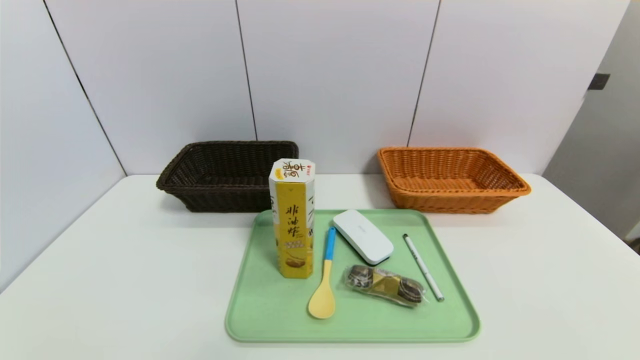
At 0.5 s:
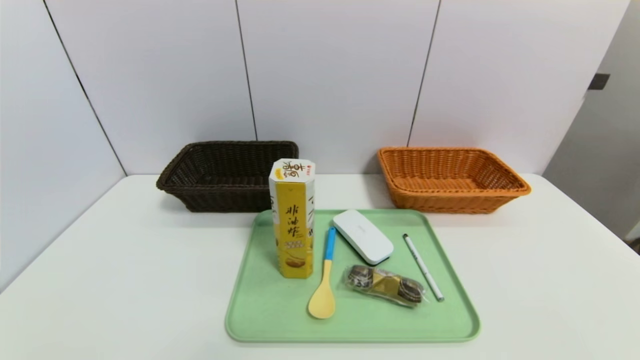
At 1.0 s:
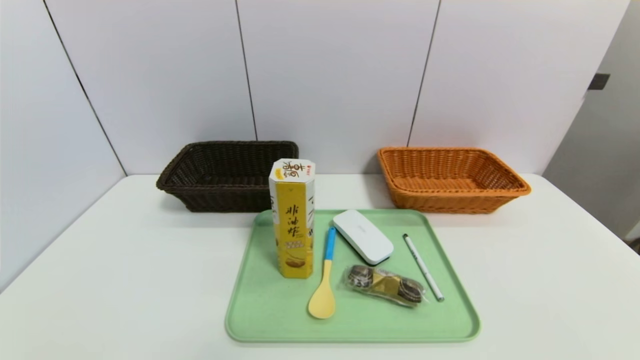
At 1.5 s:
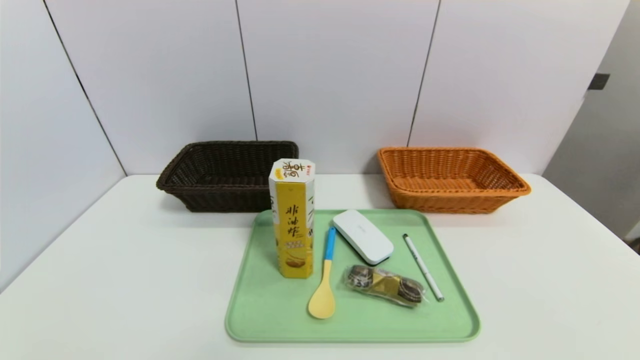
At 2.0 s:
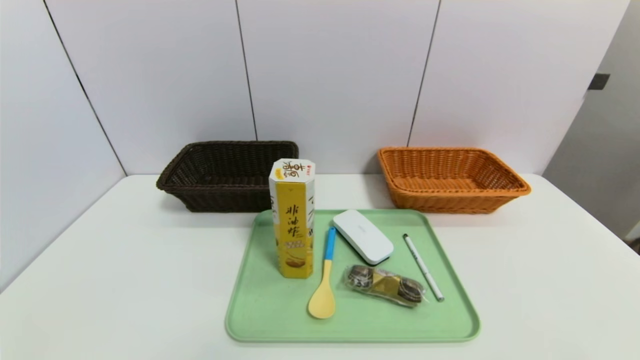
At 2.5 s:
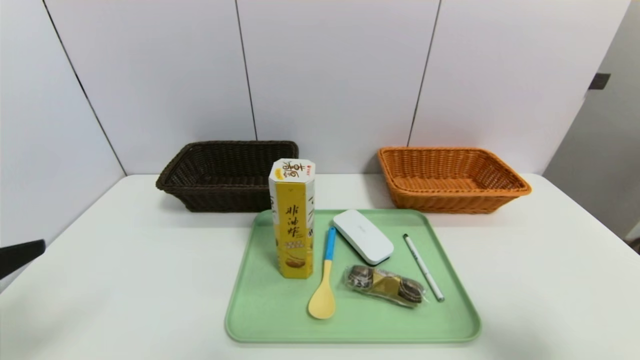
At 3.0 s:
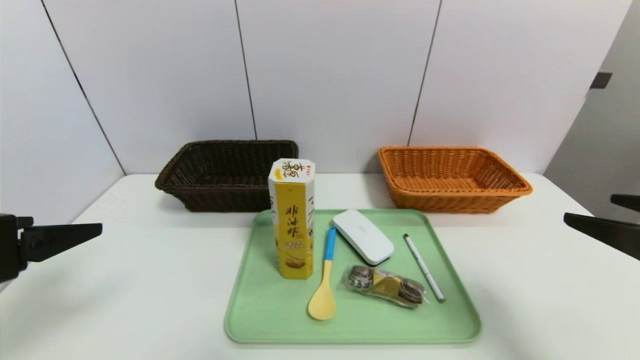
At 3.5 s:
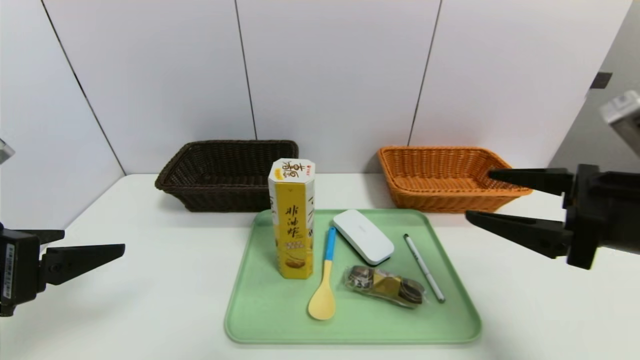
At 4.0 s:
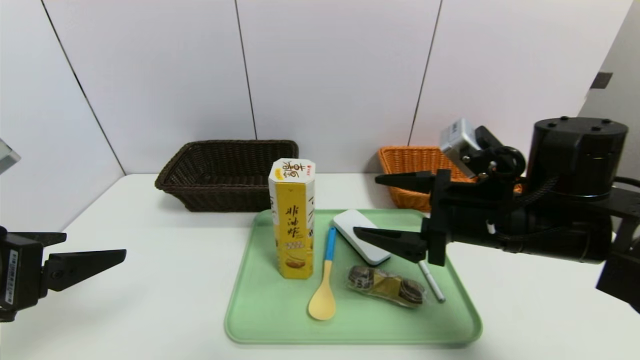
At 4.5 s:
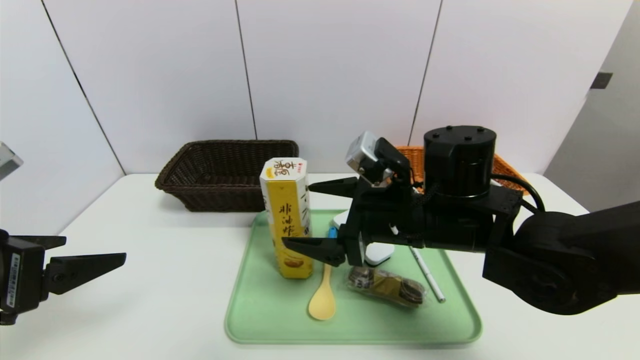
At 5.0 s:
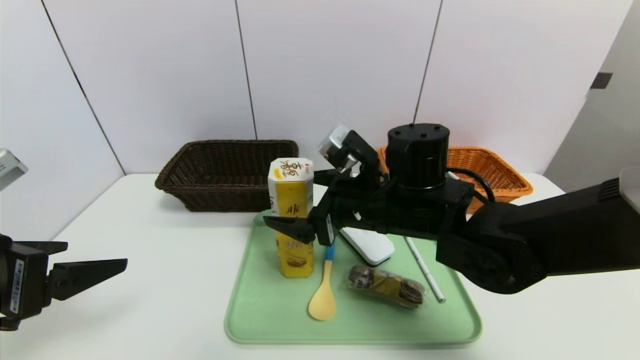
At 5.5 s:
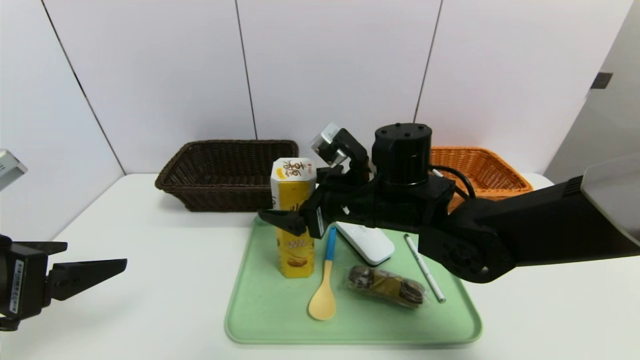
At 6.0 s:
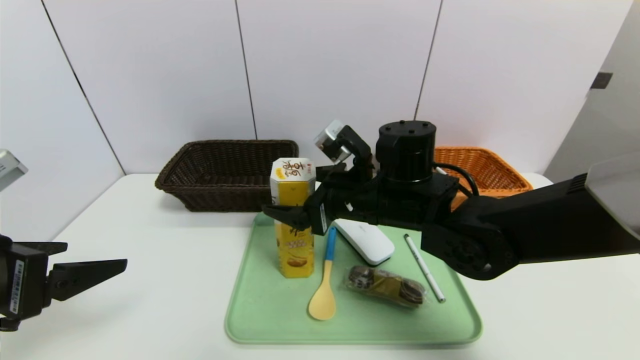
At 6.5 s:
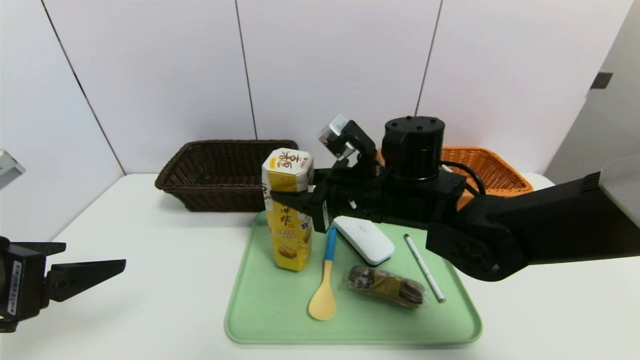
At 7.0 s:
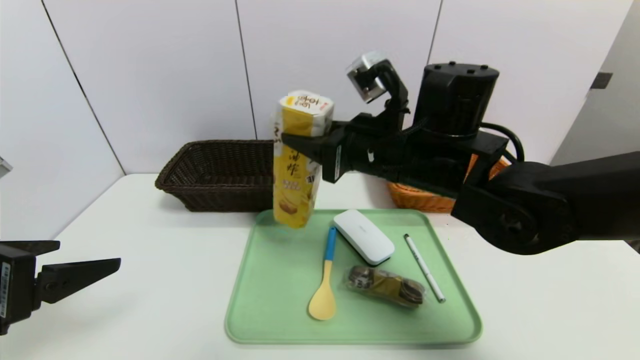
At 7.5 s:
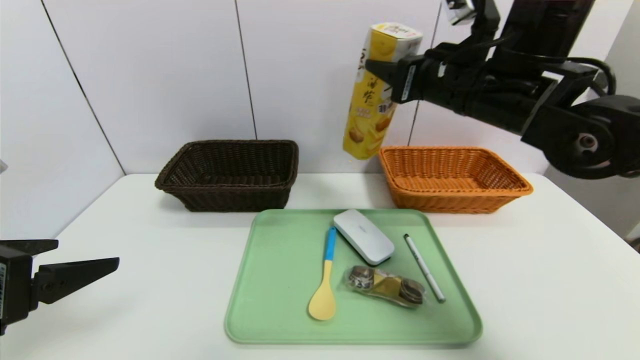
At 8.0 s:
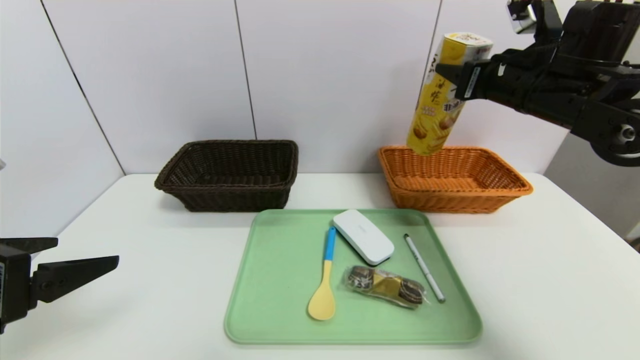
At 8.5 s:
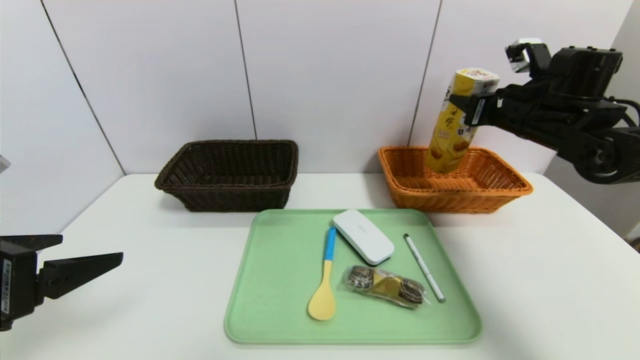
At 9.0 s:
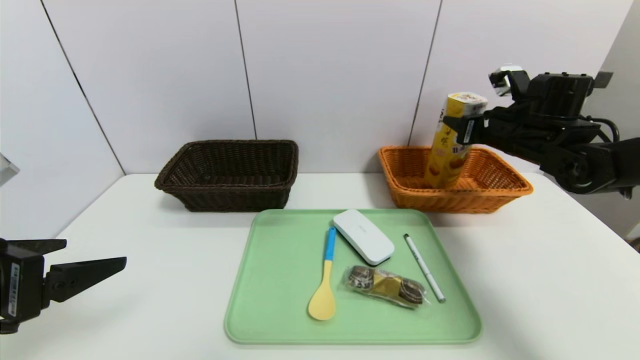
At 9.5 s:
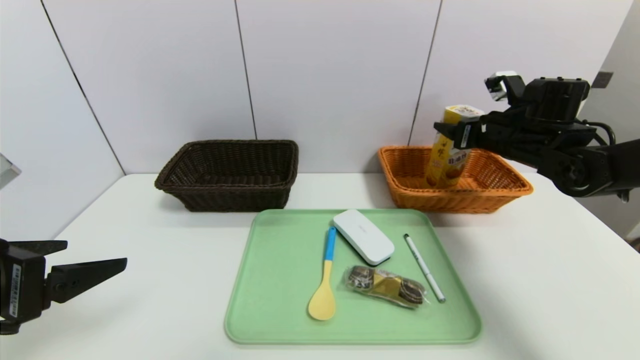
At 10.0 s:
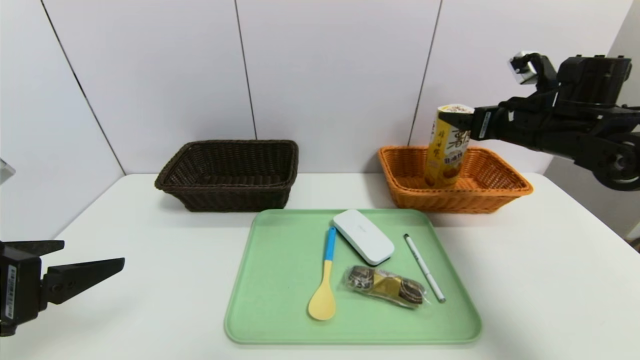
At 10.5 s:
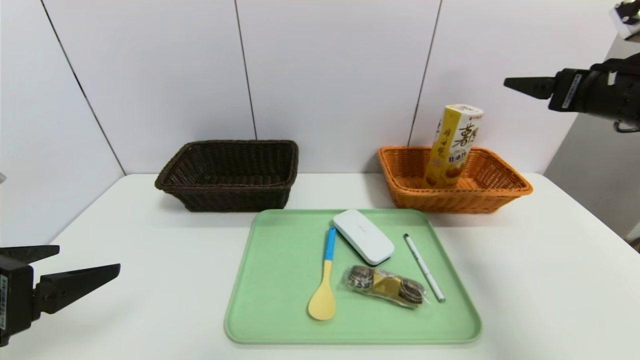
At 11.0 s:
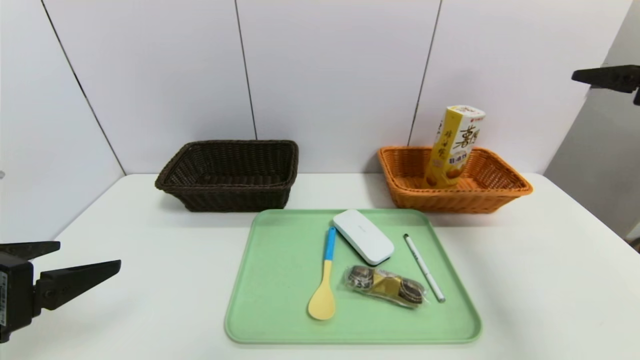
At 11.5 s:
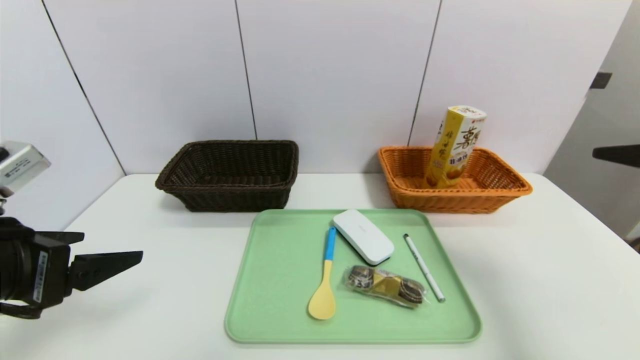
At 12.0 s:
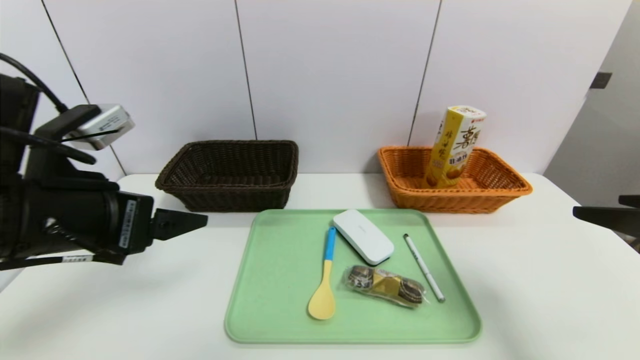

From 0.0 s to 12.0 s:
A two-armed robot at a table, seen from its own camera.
Task of the whole recording: place the food in the right basket with the right gripper, and place the non food items in the left basket with the left gripper.
Step, from 0.0 s to 10.0 s: Grasp the potato chips and put it in the right basket.
From 2.0 s to 4.0 s: The left gripper is displaced forward and upward by some 15 cm, while the right gripper moves forward and to the left, some 30 cm.
From 4.0 s to 6.0 s: The right gripper travels to the left and forward by some 15 cm.
From 6.0 s to 8.0 s: The right gripper goes approximately 20 cm to the right and upward, and closes up.
From 8.0 s to 10.0 s: The right gripper opens.
From 10.0 s to 12.0 s: The right gripper travels backward by roughly 25 cm; the left gripper travels to the right and forward by some 10 cm.

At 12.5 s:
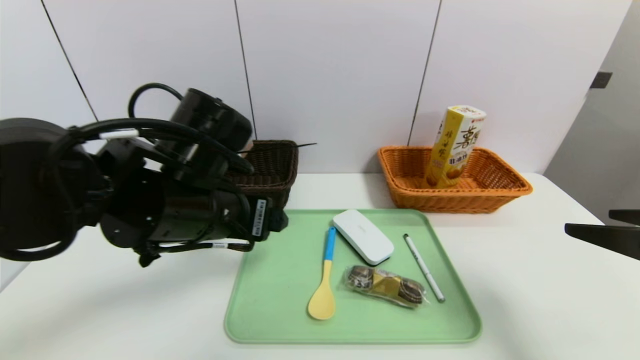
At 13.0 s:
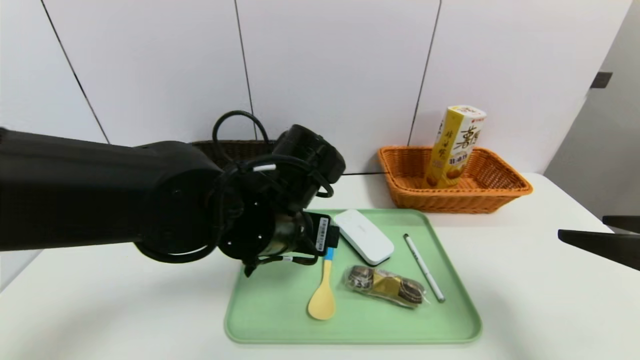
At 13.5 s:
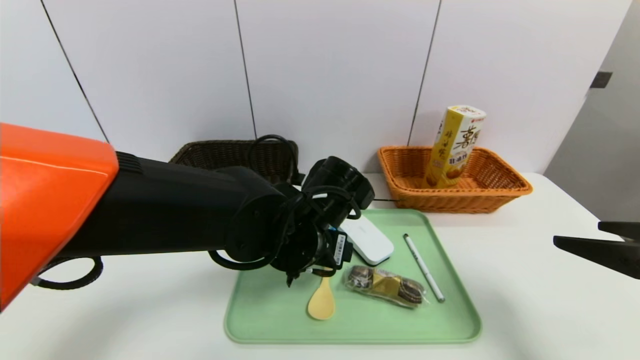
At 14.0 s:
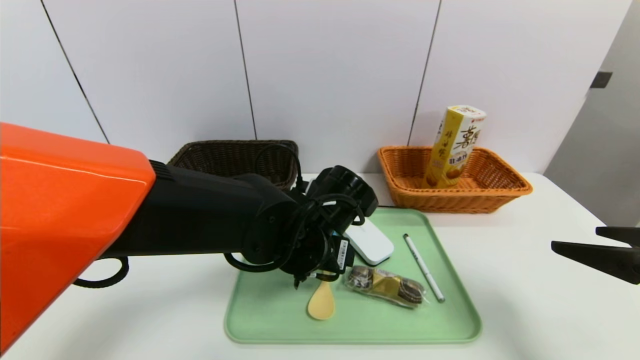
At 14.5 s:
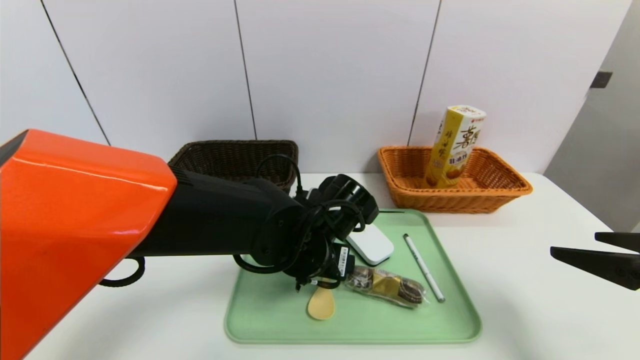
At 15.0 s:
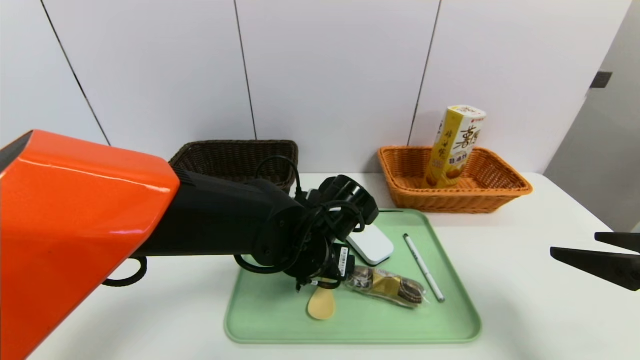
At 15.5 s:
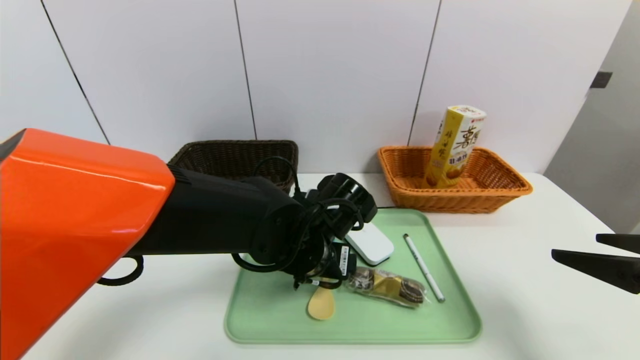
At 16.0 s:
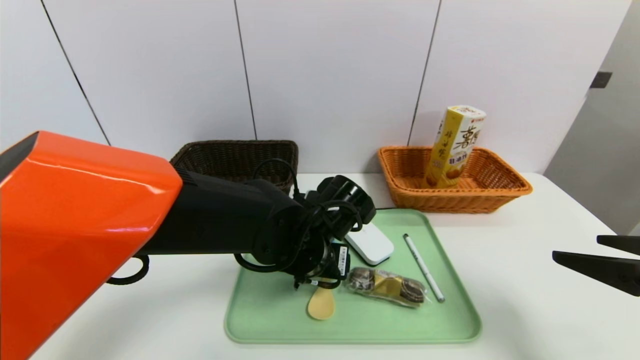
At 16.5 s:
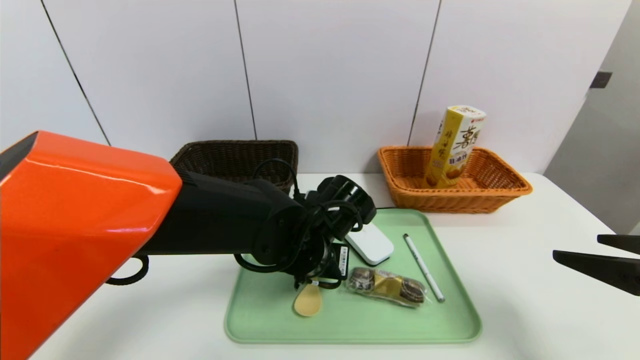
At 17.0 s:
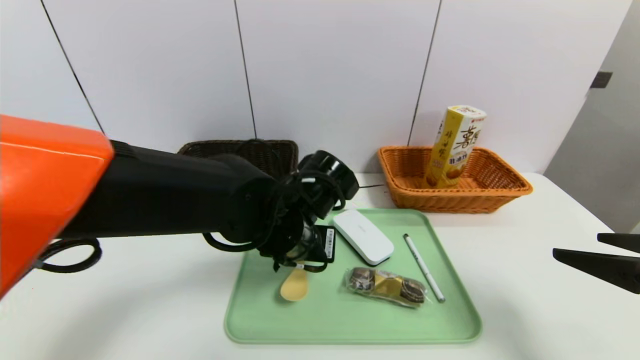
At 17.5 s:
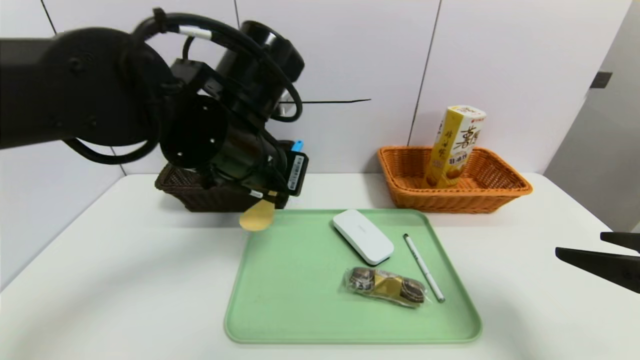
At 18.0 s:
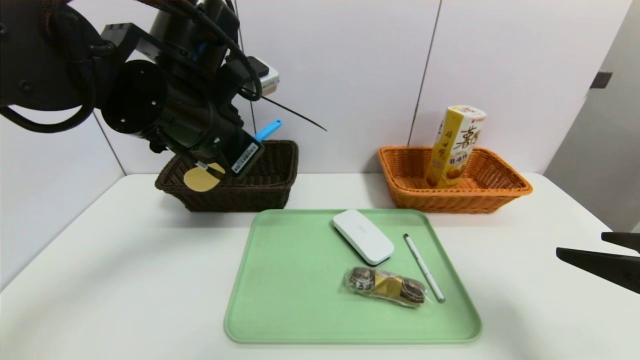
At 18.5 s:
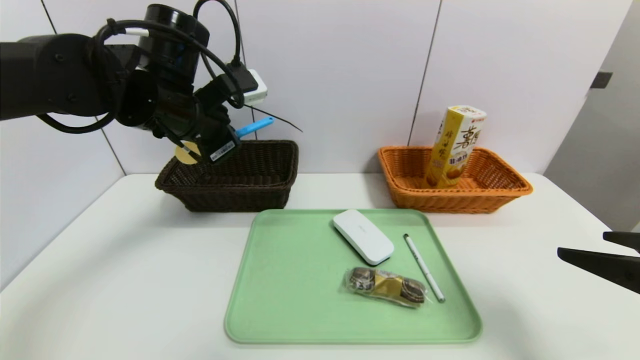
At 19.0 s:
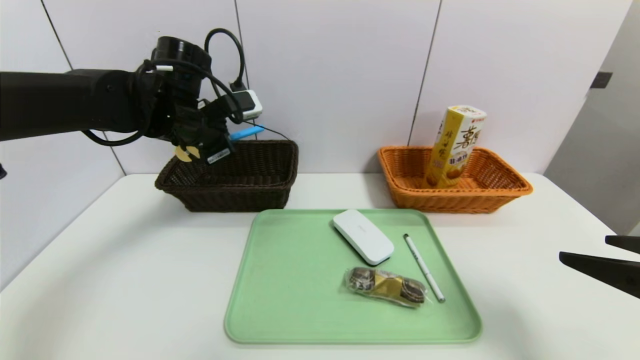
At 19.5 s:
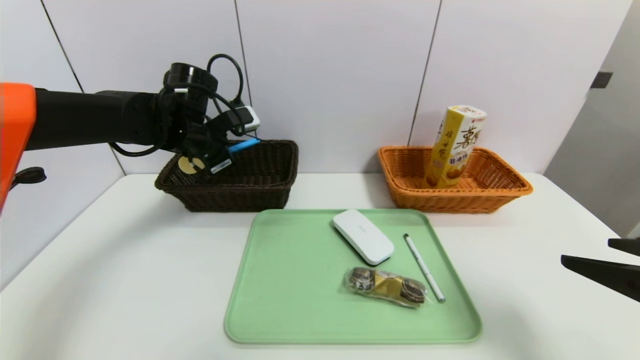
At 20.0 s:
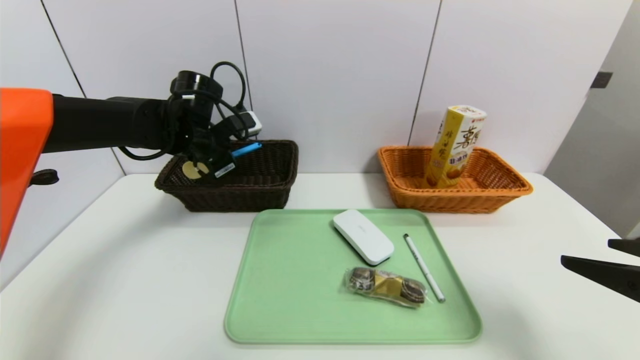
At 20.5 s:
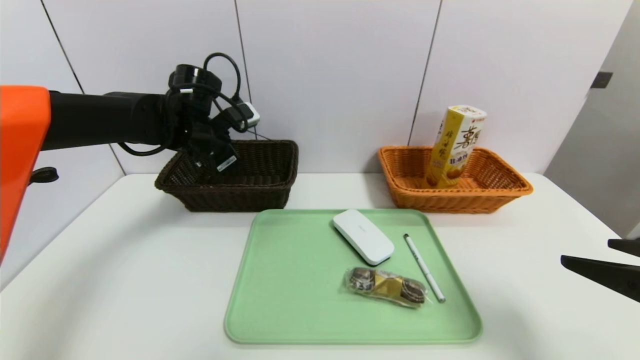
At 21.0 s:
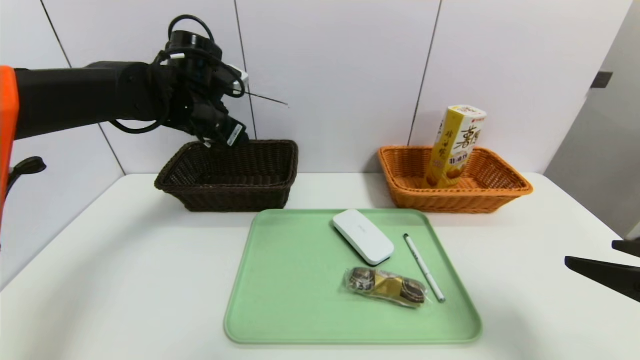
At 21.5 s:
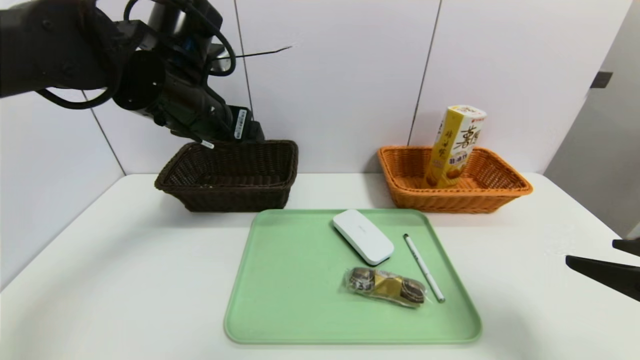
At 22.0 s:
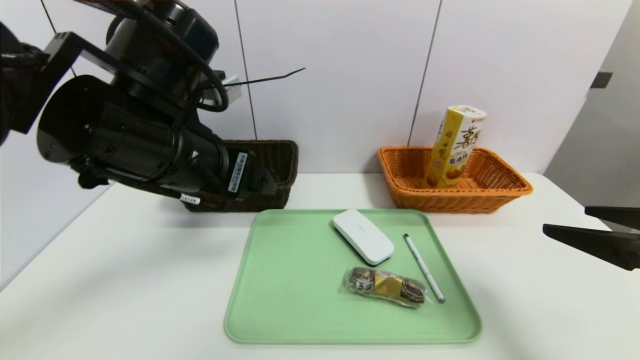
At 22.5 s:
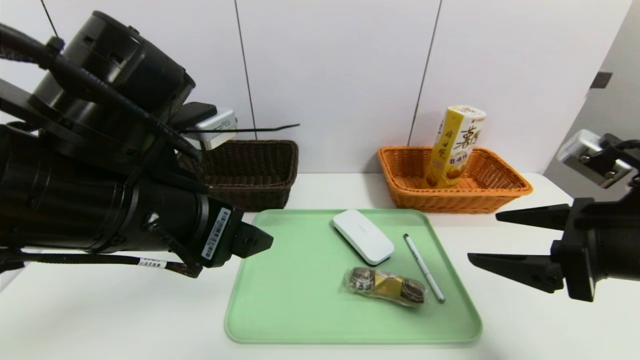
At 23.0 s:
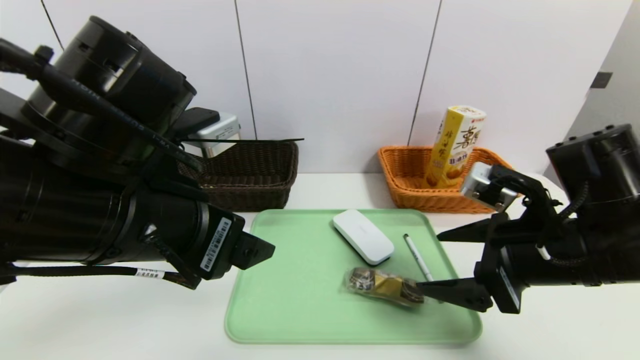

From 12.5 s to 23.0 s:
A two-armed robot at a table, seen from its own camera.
Task of the whole recording: place the food in the right basket with the right gripper, and place the non food items in the left basket with the left gripper.
Step, from 12.5 s to 20.5 s: Grasp the spoon and put it in the left basket.
From 12.5 s to 14.5 s: The left gripper heads to the right and downward, covering roughly 15 cm.
From 14.5 s to 16.5 s: The left gripper closes up.
From 16.5 s to 19.0 s: The left gripper shifts about 25 cm to the left, upward and forward.
From 19.0 s to 21.0 s: The left gripper opens up.
From 21.0 s to 23.0 s: The right gripper travels to the left and forward by about 15 cm. The left gripper shifts about 25 cm backward.
